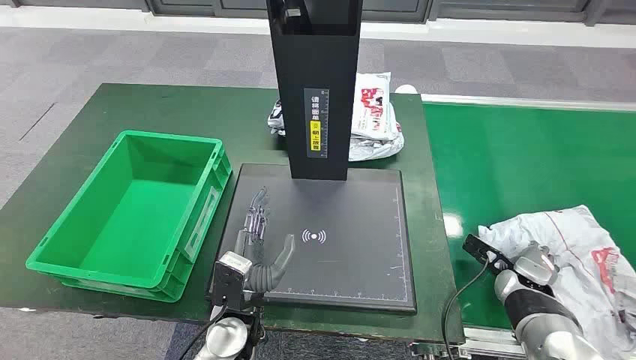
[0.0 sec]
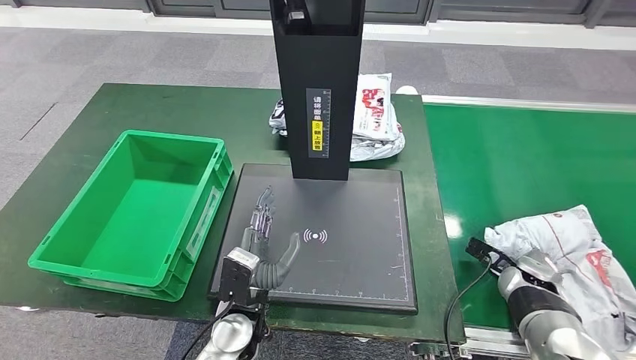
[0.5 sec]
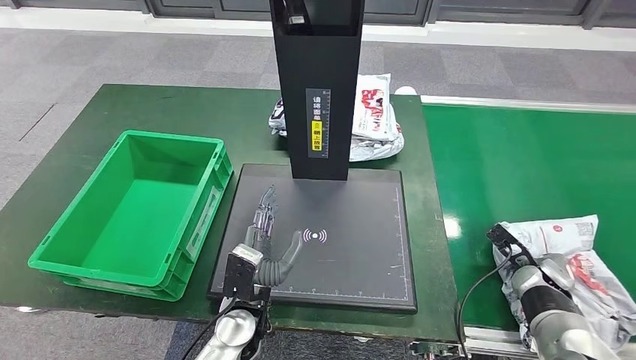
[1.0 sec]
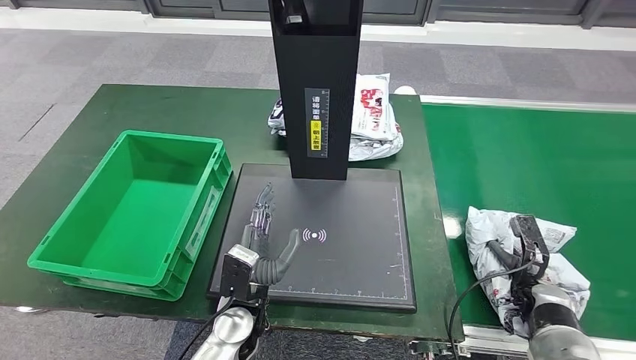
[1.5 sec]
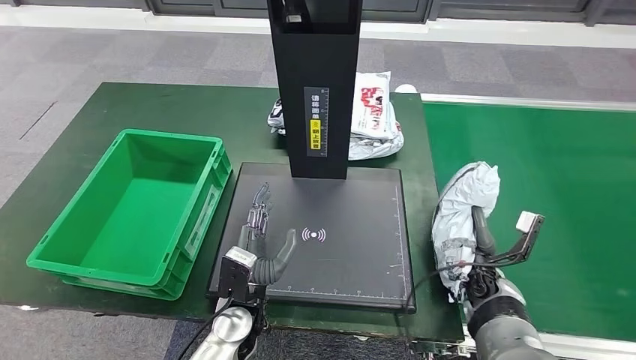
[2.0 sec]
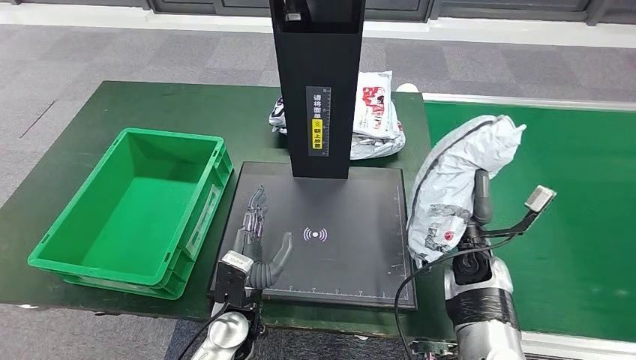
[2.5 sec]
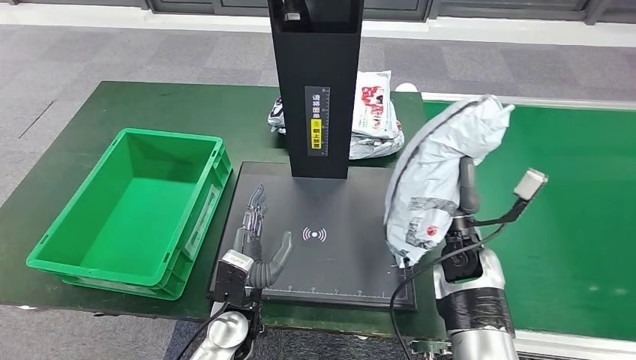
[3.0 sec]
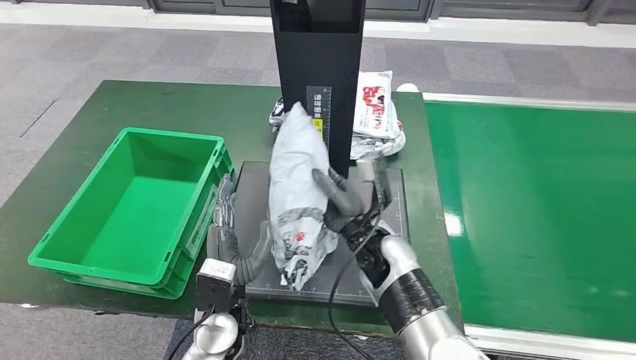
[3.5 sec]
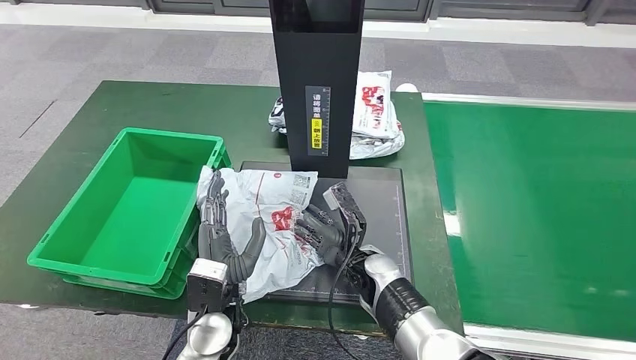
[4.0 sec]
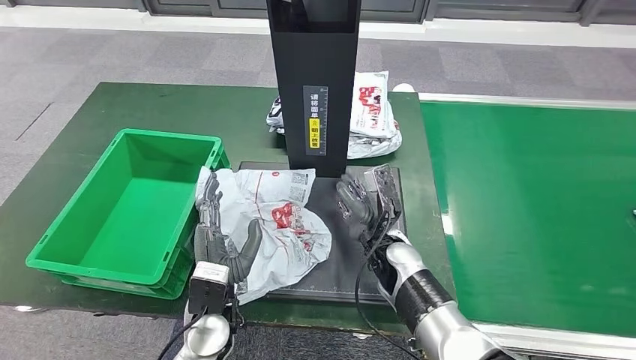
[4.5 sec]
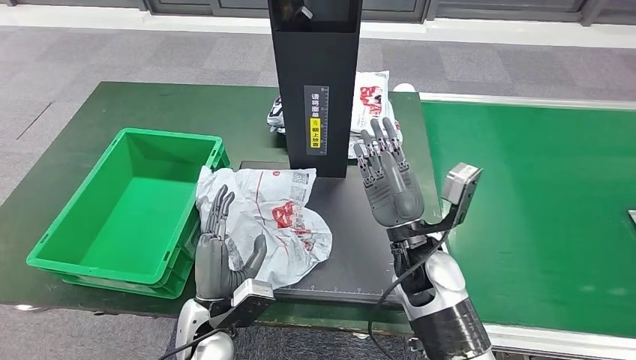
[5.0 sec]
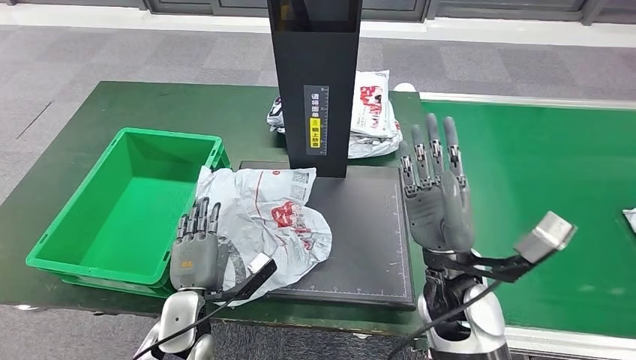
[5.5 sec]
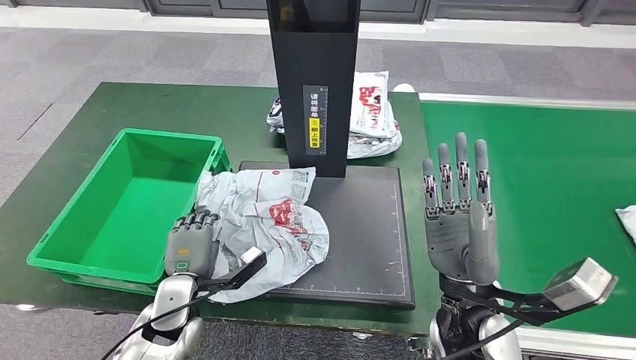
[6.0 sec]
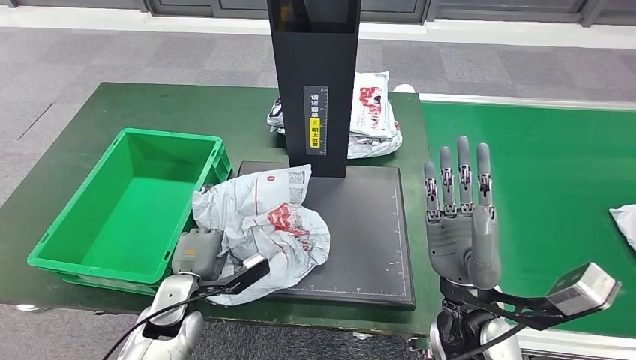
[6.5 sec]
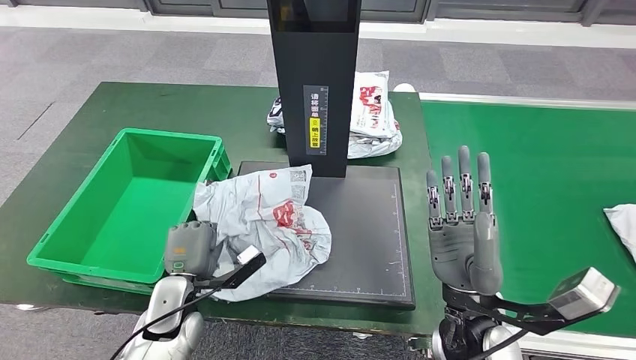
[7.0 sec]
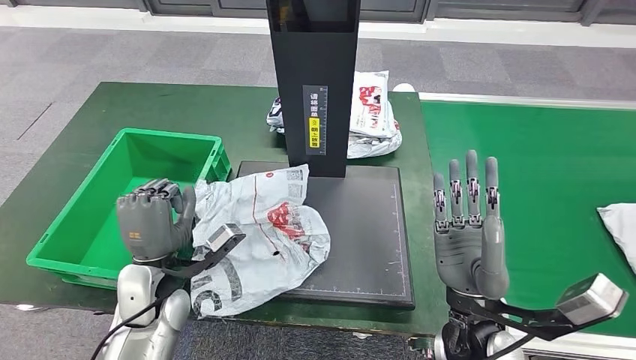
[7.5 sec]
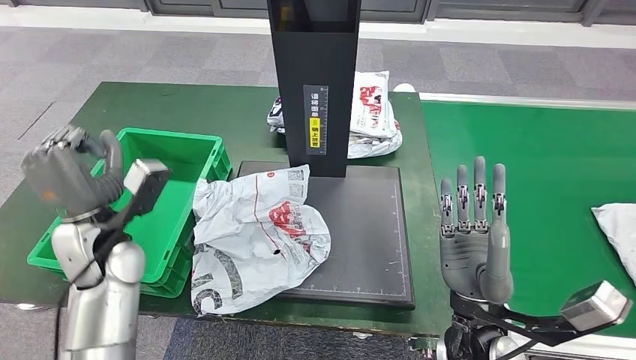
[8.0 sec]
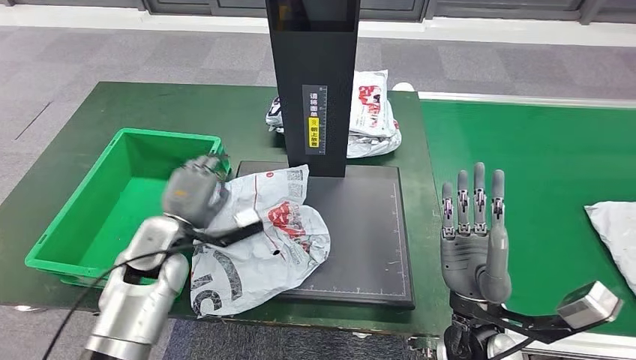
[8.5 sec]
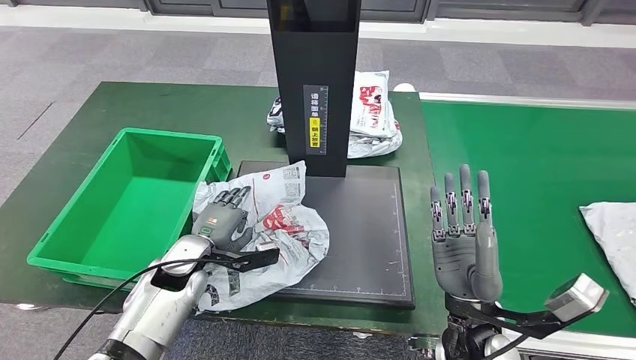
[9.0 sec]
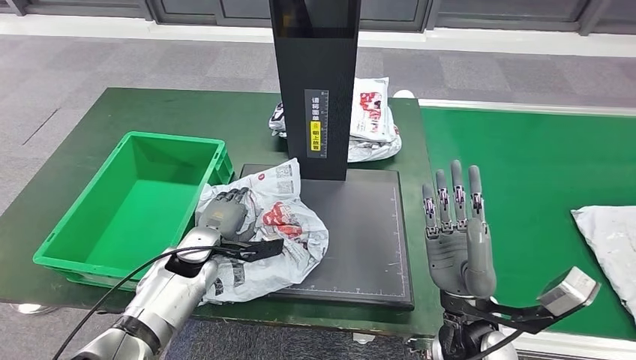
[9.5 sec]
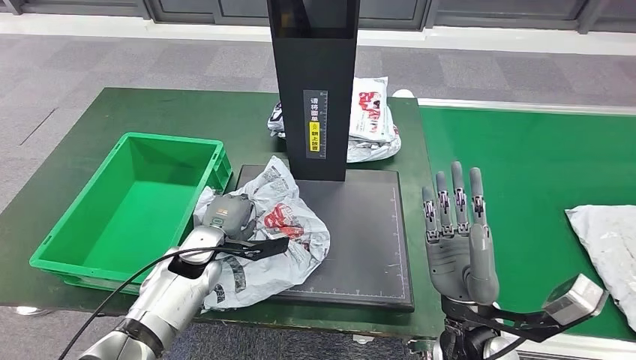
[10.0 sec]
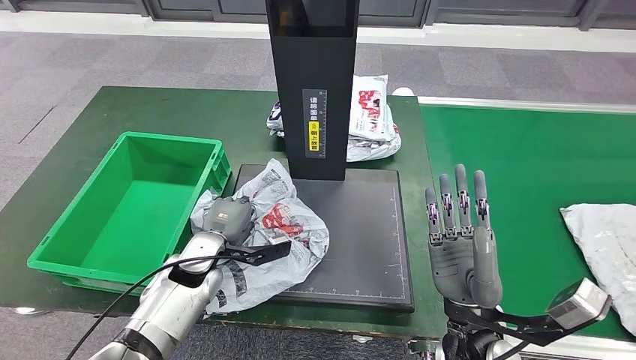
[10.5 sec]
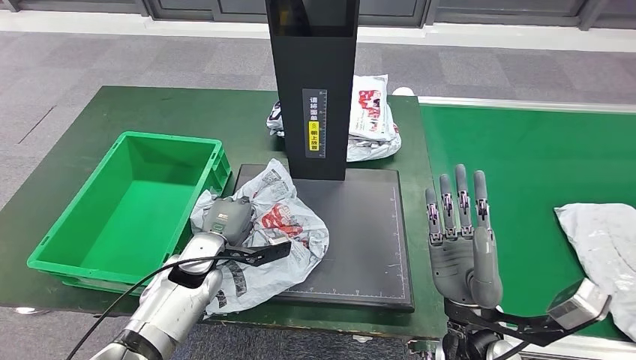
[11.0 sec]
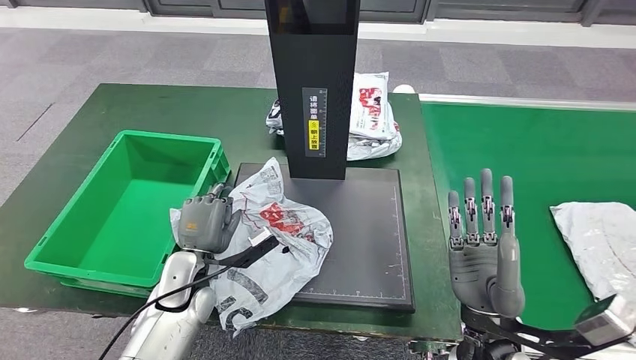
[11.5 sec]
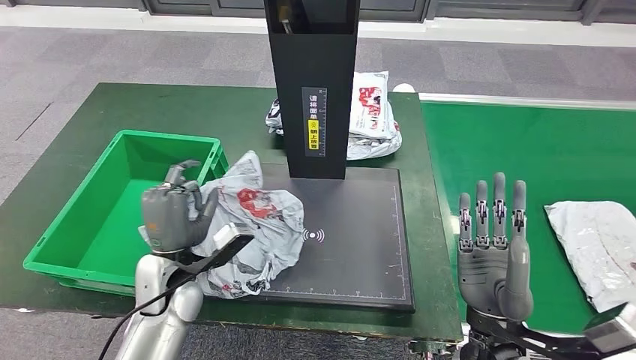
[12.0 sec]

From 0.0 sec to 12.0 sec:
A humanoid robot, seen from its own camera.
Step, from 0.0 sec to 2.0 sec: Take the parcel off the conveyor belt.
Step, from 2.5 sec to 4.5 sec: Place the parcel onto the inbound machine.

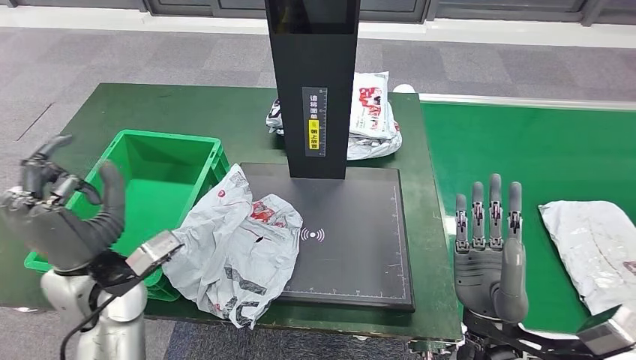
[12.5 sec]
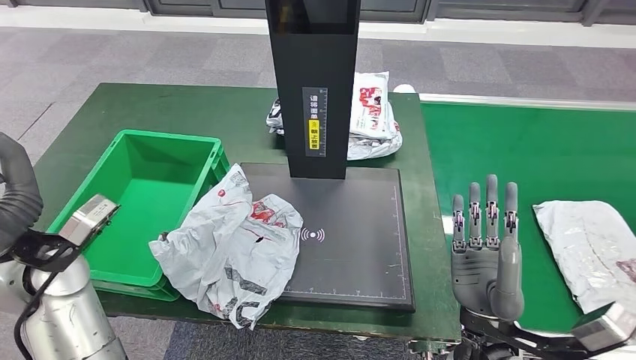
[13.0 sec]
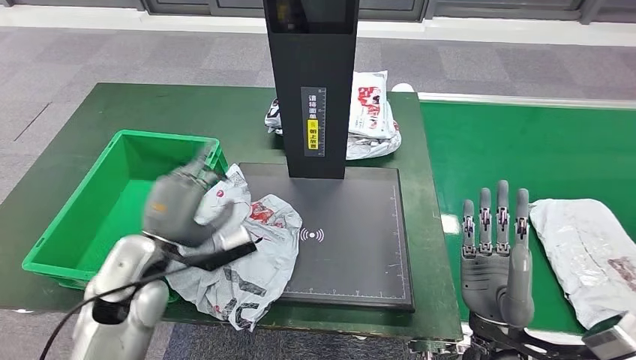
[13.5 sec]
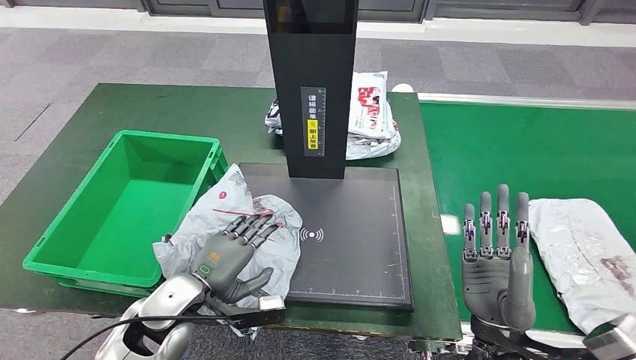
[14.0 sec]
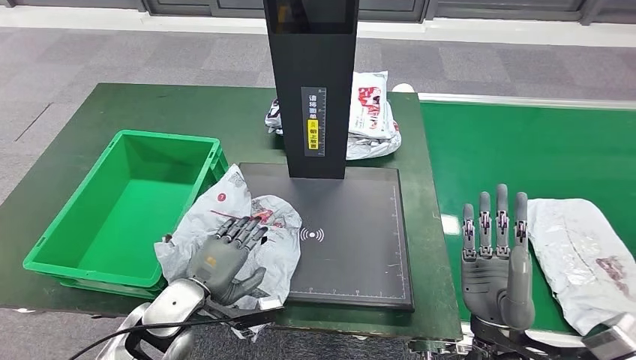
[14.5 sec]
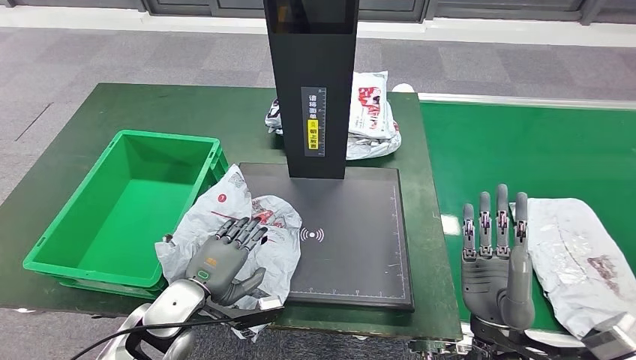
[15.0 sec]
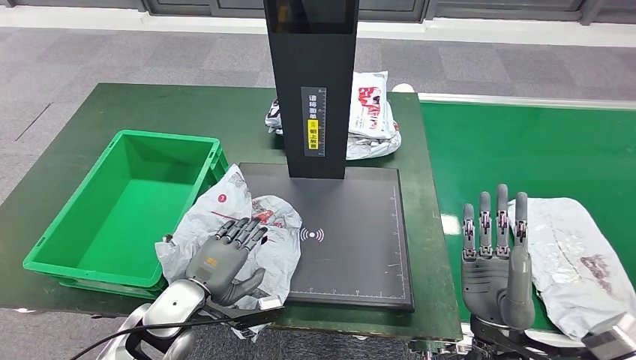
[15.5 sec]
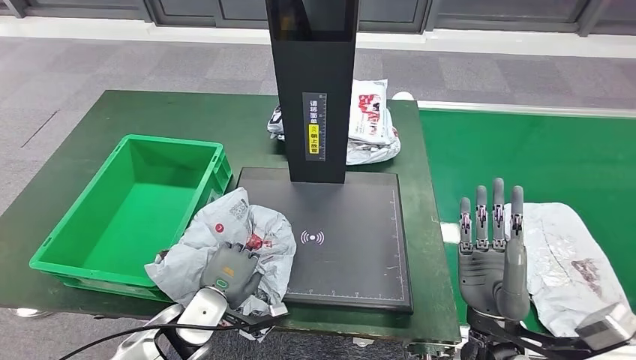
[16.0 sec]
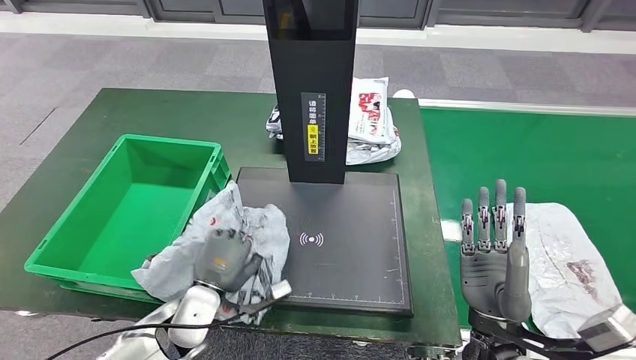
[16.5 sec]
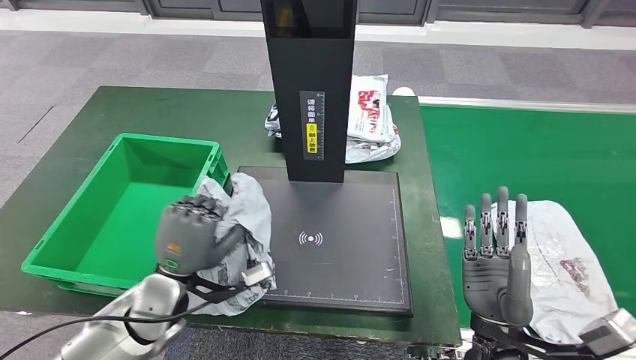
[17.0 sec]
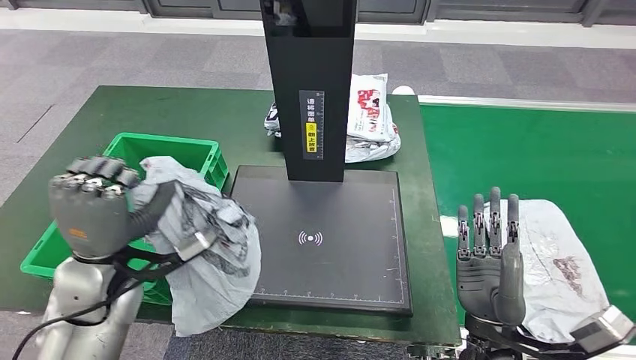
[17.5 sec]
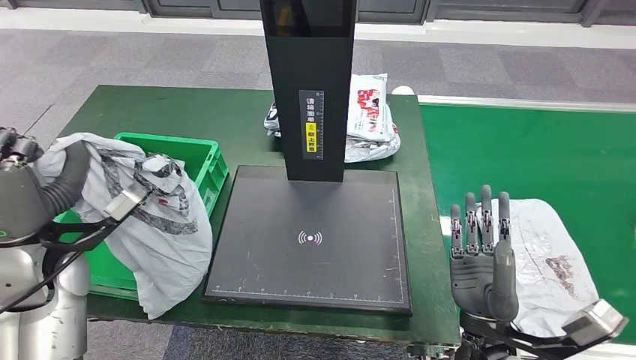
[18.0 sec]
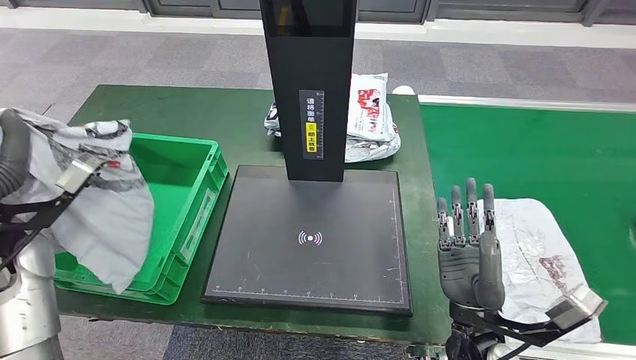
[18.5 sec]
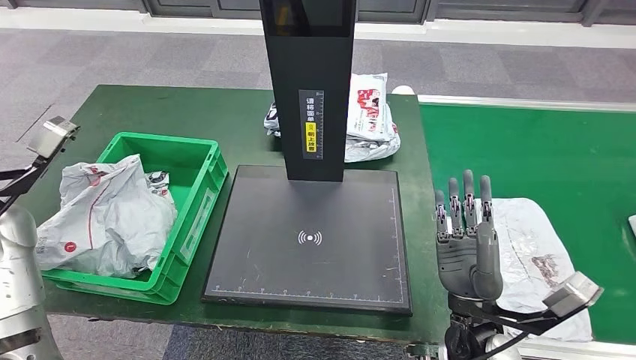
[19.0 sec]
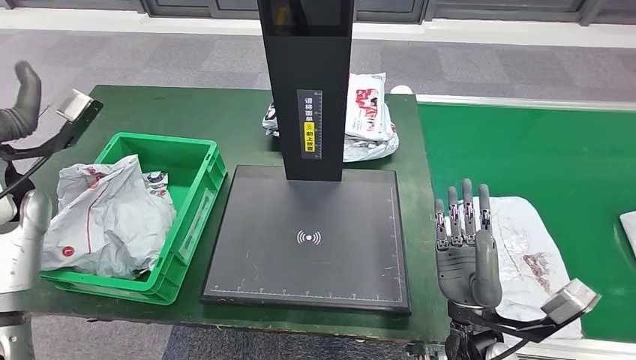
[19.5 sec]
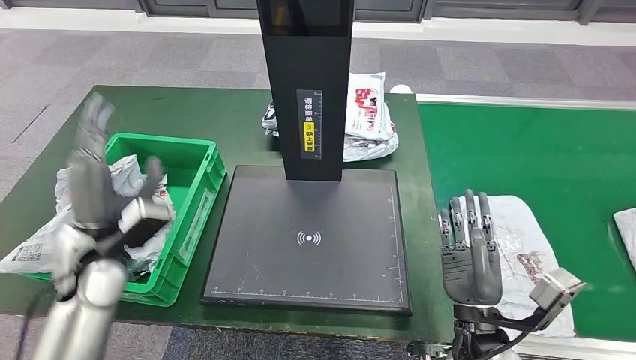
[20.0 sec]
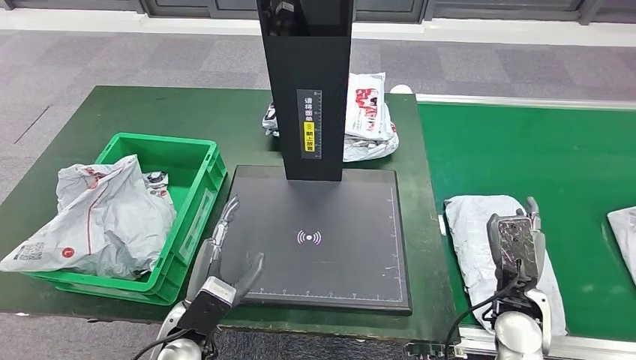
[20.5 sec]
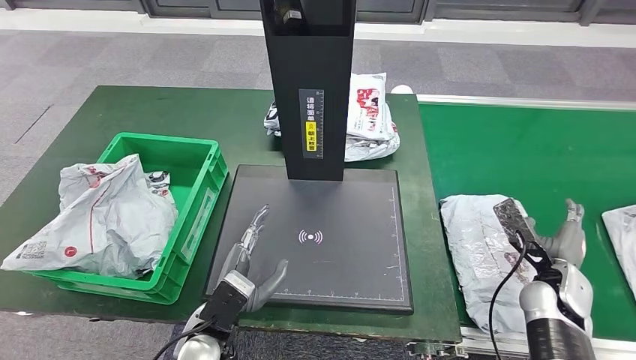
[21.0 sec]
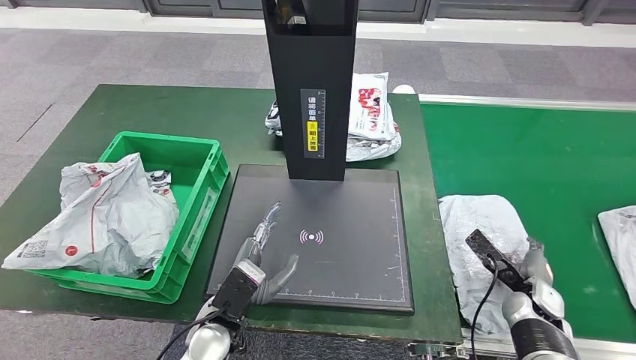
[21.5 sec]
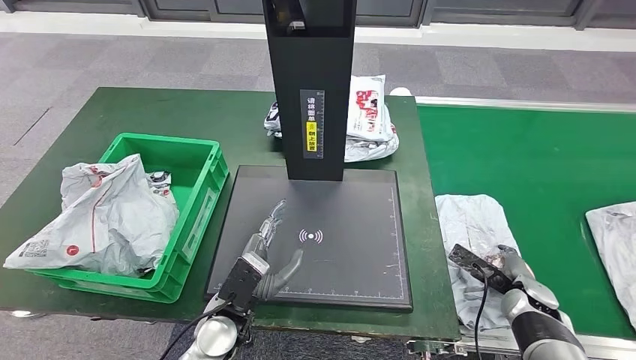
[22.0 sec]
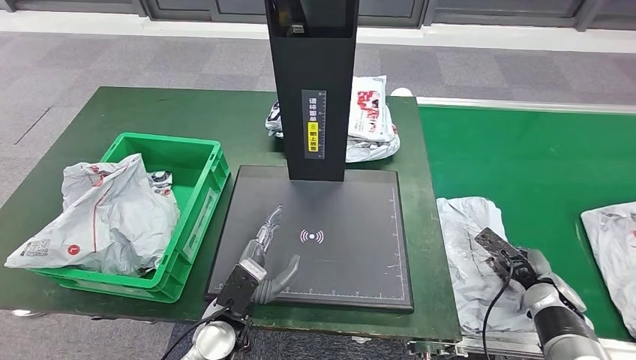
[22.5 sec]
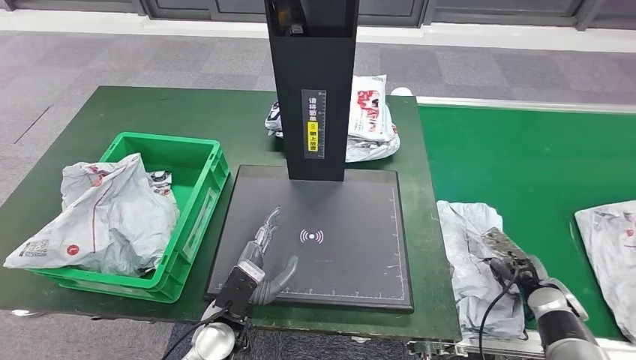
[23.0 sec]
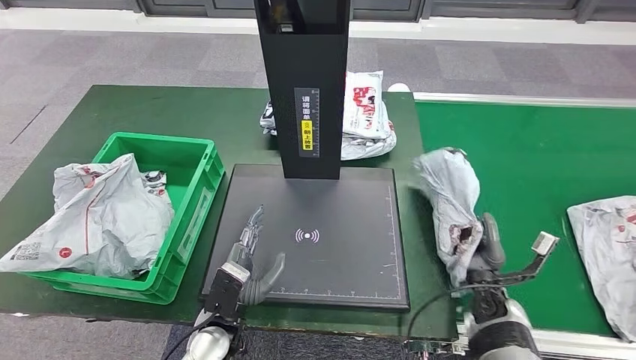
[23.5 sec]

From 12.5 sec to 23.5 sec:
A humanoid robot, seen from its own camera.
Step, from 13.5 sec to 17.5 sec: Pick up the parcel from the inbound machine.
Step, from 18.0 sec to 20.0 sec: Put the parcel inside the courier box.
From 12.5 sec to 14.5 sec: The left hand goes about 10 cm downward and to the right.
